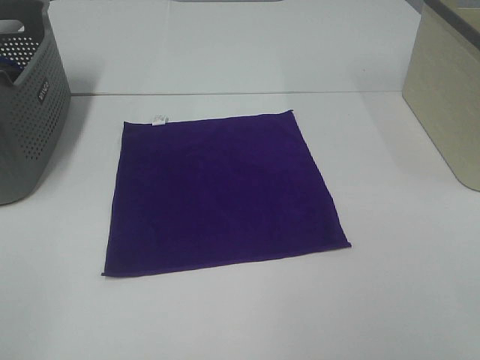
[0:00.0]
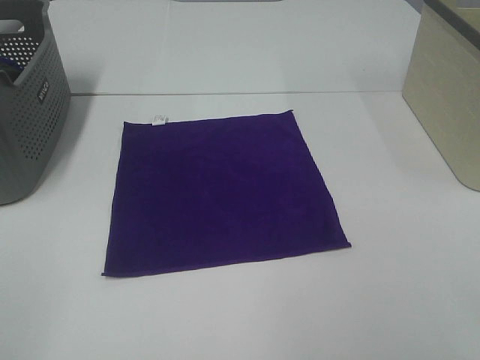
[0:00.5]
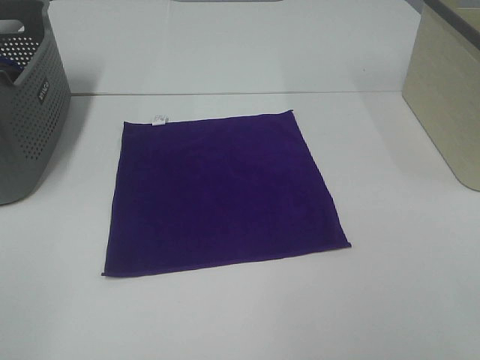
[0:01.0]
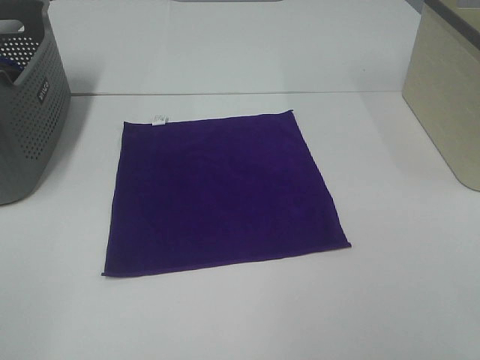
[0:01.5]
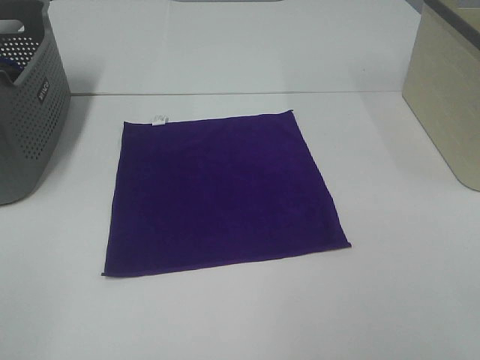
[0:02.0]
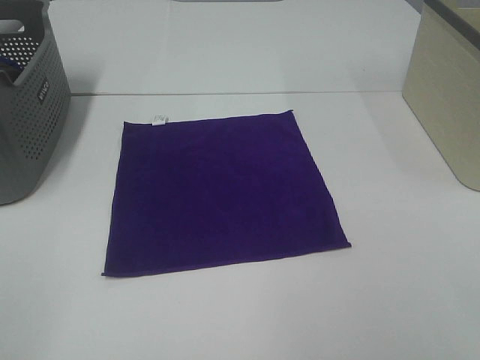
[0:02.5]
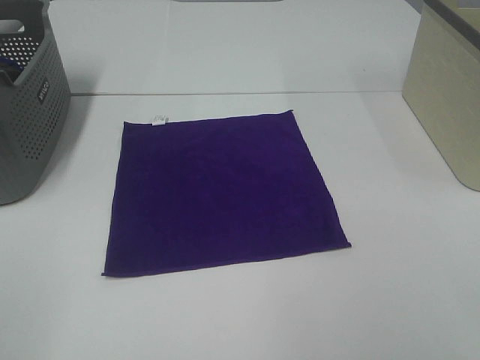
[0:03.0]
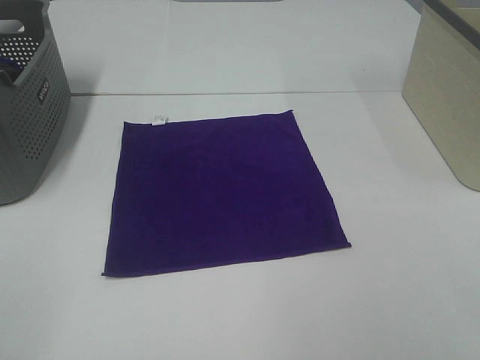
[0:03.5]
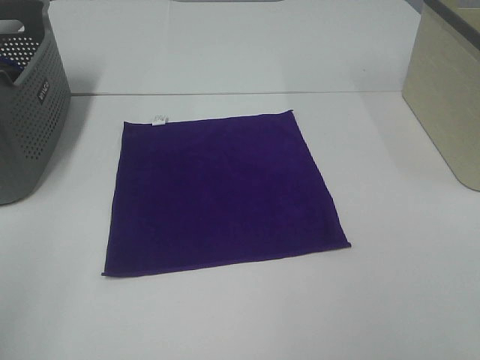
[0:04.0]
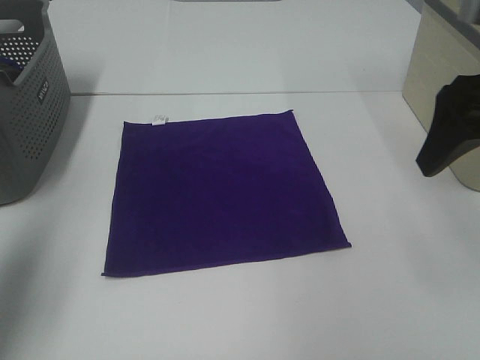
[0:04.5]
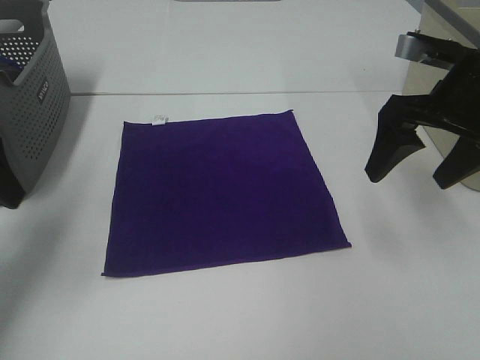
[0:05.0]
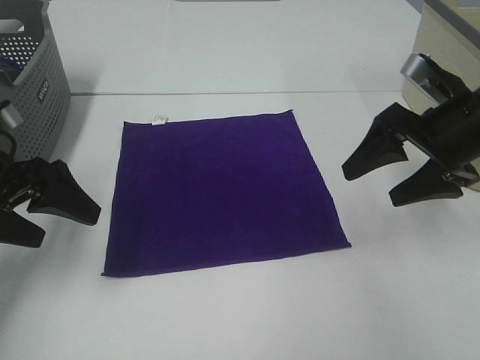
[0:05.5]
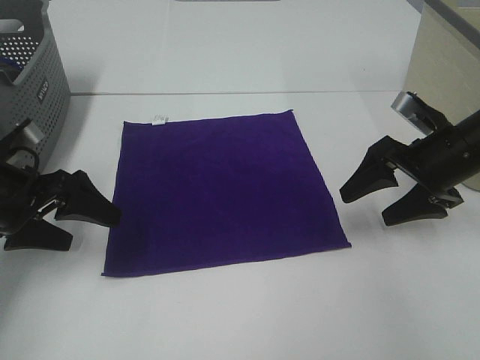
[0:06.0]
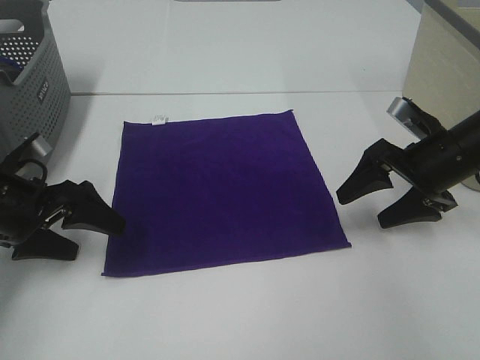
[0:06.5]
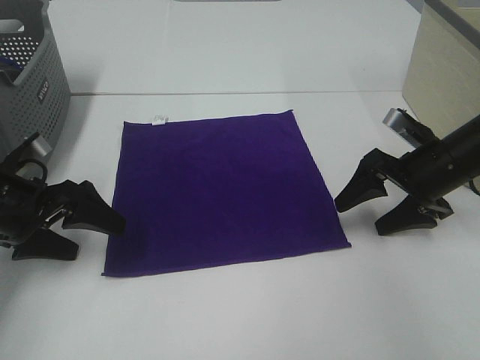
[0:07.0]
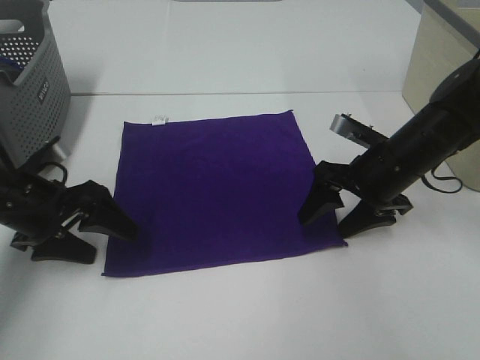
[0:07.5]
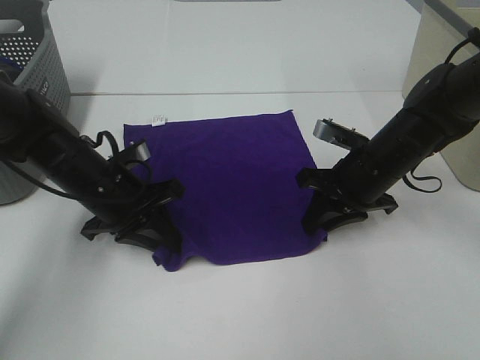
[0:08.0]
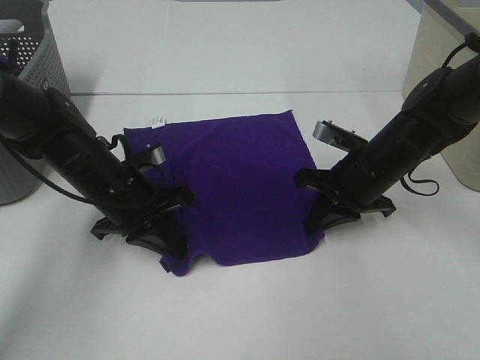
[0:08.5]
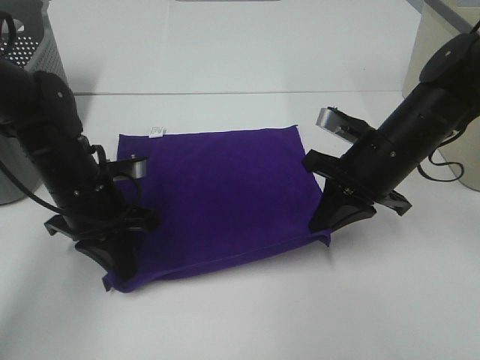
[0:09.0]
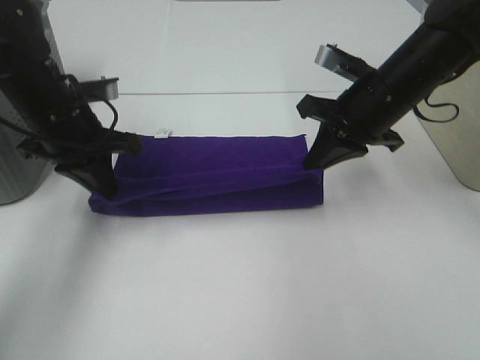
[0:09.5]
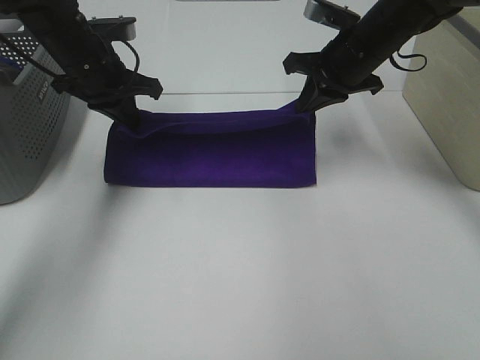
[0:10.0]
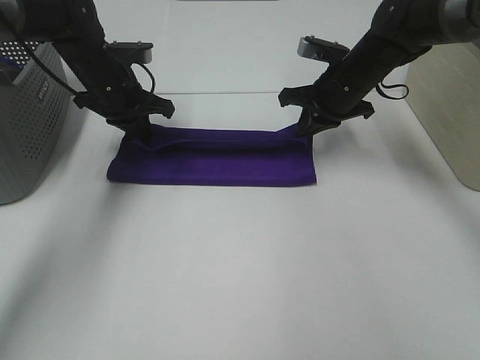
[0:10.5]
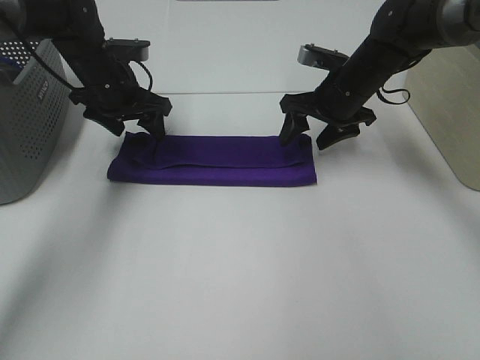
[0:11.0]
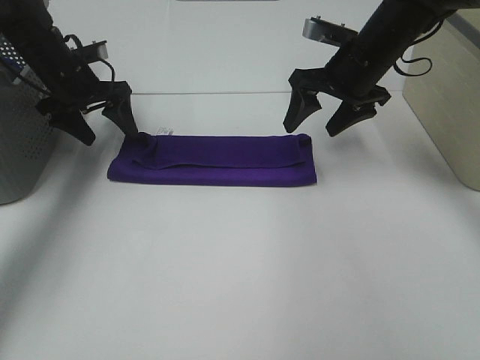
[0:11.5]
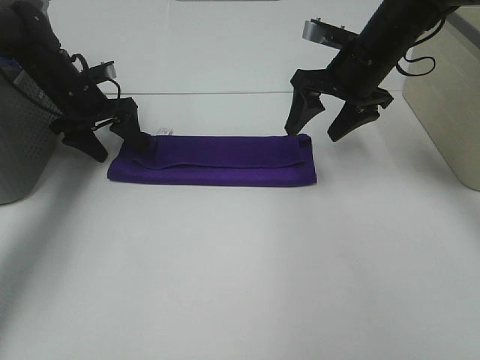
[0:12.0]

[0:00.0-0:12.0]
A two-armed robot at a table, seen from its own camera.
Task of the whole recording: Fold towels.
Step, 0:00.0 to 0:08.0: Left hand: grab the bottom left corner of purple towel.
Step, 0:00.0 to 0:08.0: Right hand: grab the bottom right corner of purple towel.
Step, 0:08.5 to 0:10.5: Left hand: fold the purple towel up.
Step, 0:08.5 to 0:10.5: Right hand: fold the purple towel up.
0:00.0 to 0:02.0: Both grippers stay about where they are.
0:04.0 to 0:06.0: The grippers both shift forward and downward by approximately 30 cm.
0:06.0 to 0:08.0: The right gripper heads to the left, covering some 10 cm, and closes up. Meanwhile the left gripper goes approximately 10 cm to the right, and closes its fingers.
0:08.0 to 0:10.0: The right gripper goes some 15 cm upward and forward, while the left gripper travels forward and upward by about 15 cm.
0:10.0 to 0:12.0: The right gripper opens its fingers; the left gripper travels downward, to the left and forward by some 10 cm, and opens up.

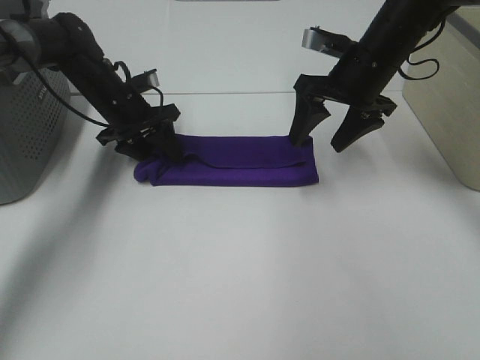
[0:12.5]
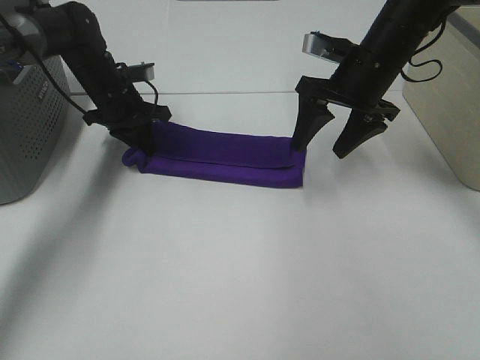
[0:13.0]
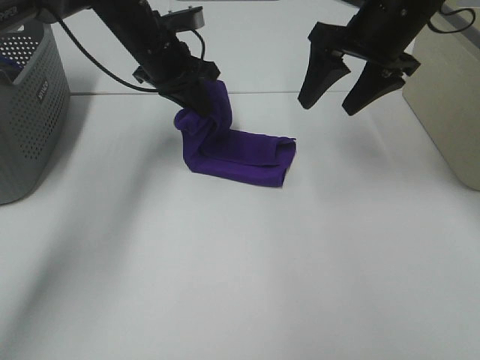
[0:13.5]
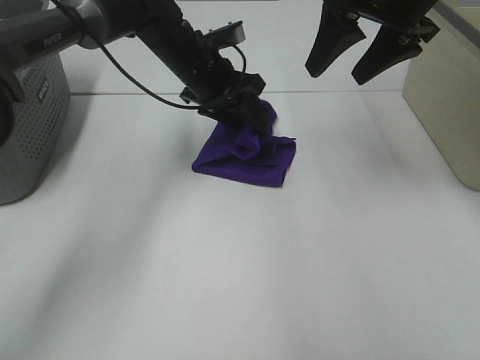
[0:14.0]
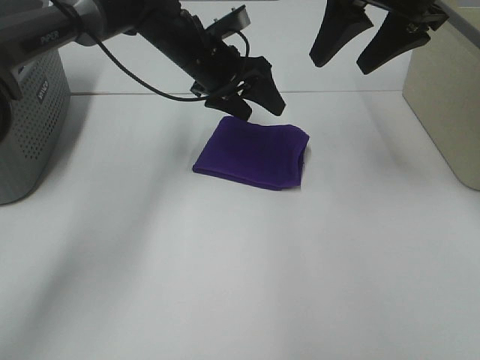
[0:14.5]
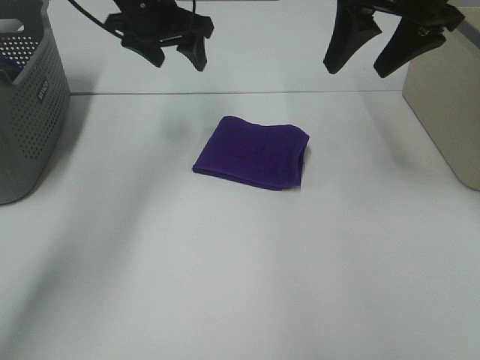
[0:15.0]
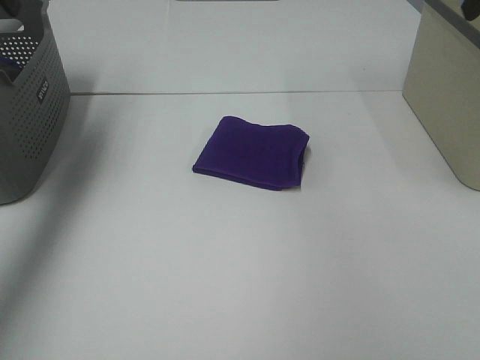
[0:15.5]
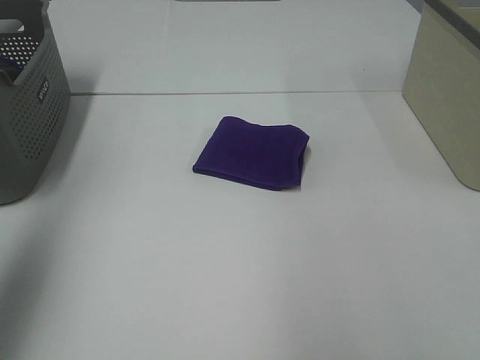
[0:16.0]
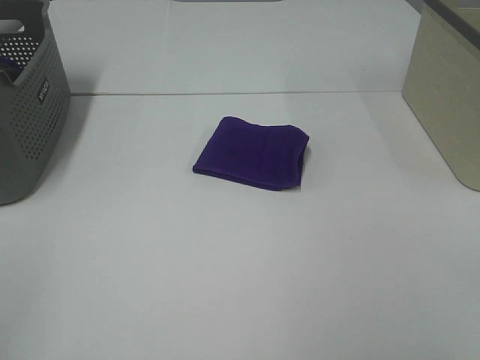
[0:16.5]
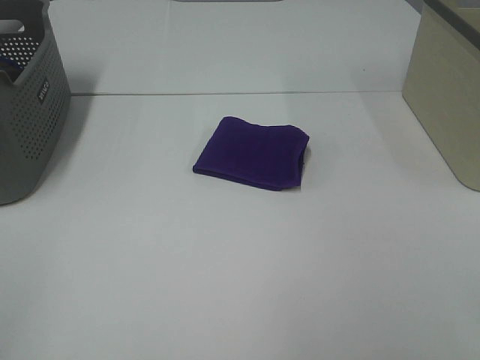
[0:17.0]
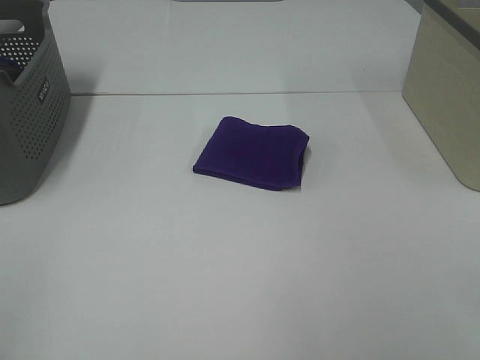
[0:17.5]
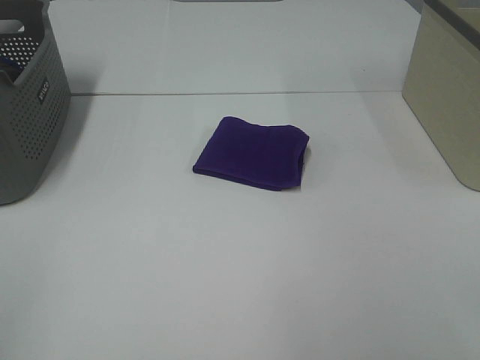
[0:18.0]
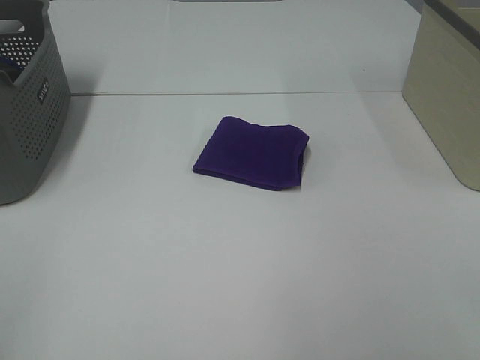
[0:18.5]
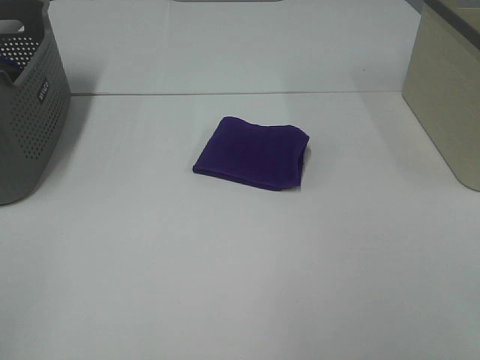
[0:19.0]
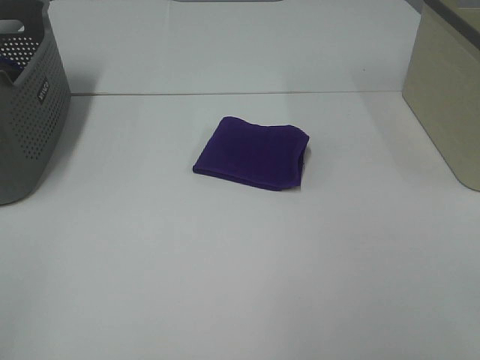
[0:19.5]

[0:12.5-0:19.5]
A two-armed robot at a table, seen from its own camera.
Task of the whole recording: Fold towels.
0:12.5 to 0:14.5: The left gripper heads to the right and upward, covering roughly 15 cm, and closes and opens again. The right gripper moves upward, approximately 15 cm.
0:14.5 to 0:16.0: The left gripper travels backward, to the left and upward by some 40 cm, while the right gripper heads backward and to the right, covering approximately 25 cm.
0:16.0 to 0:17.5: The left gripper goes approximately 20 cm backward and downward.
0:17.5 to 0:19.5: Both grippers stay about where they are.

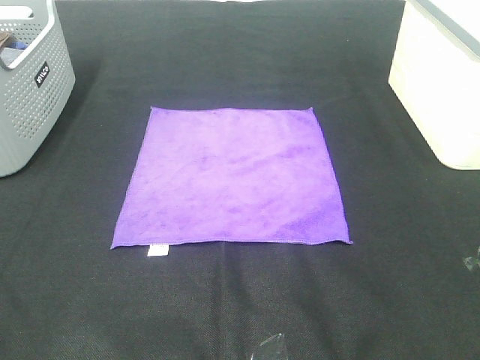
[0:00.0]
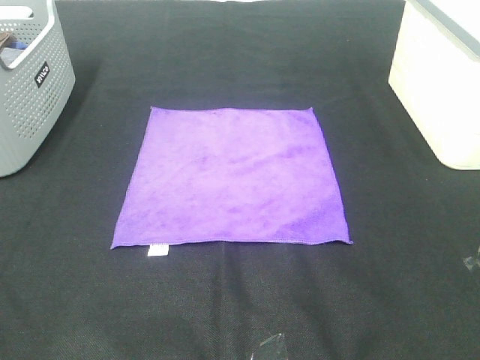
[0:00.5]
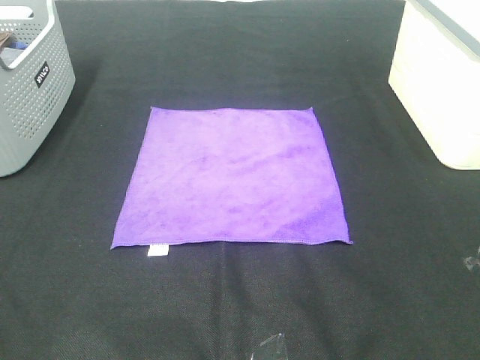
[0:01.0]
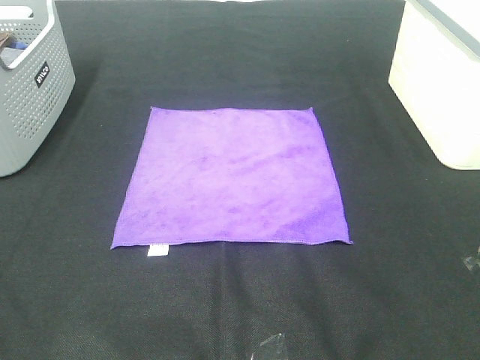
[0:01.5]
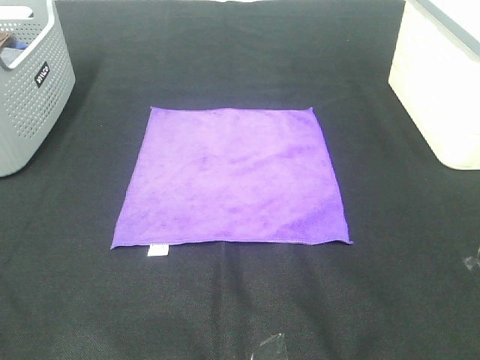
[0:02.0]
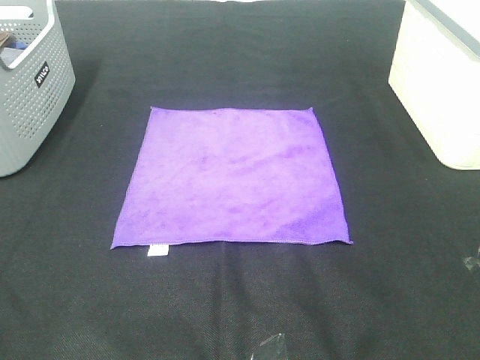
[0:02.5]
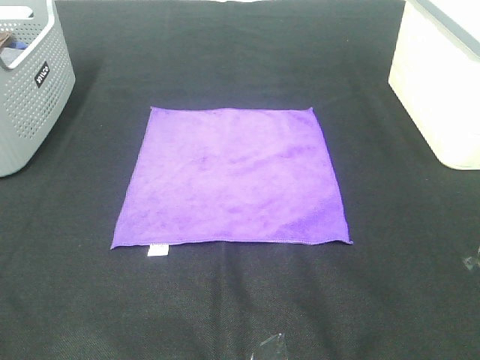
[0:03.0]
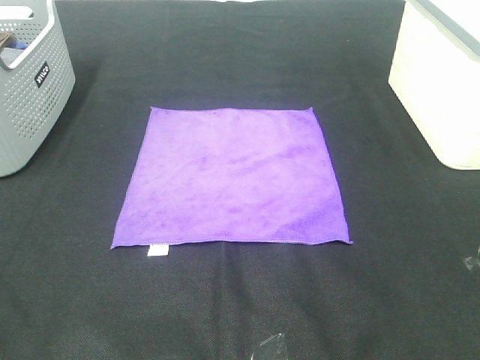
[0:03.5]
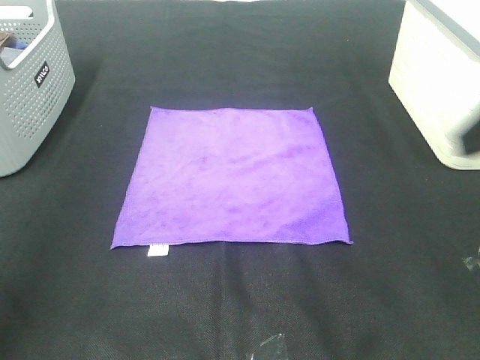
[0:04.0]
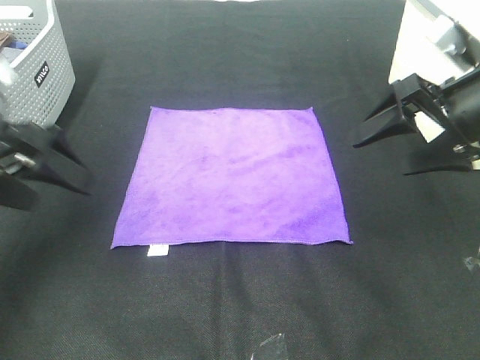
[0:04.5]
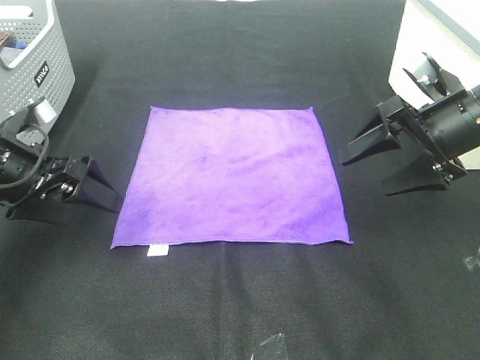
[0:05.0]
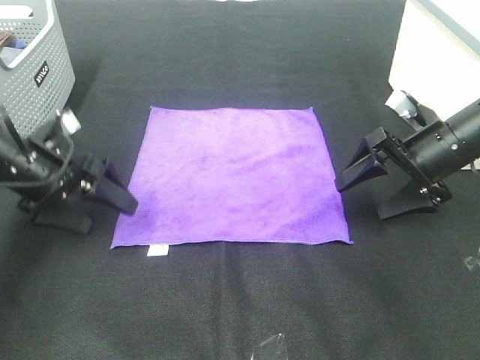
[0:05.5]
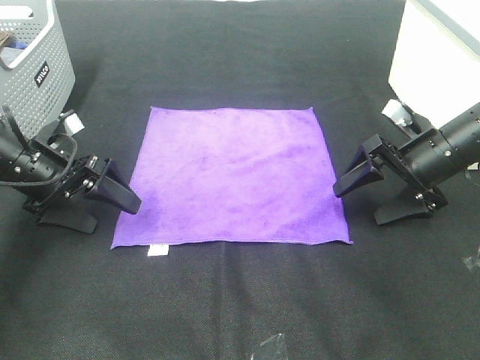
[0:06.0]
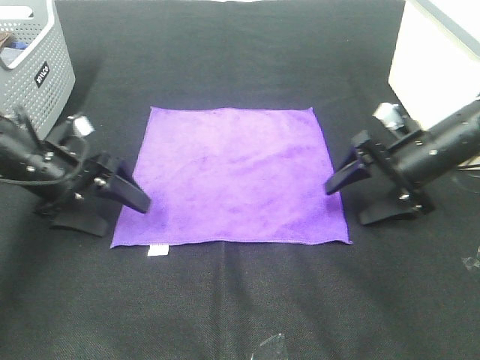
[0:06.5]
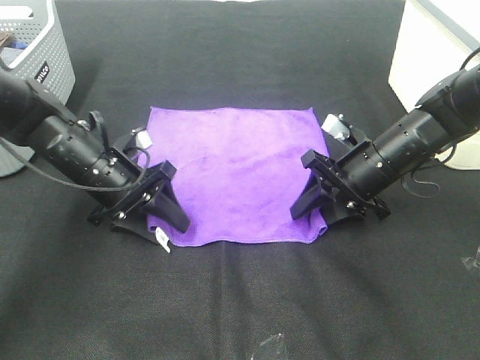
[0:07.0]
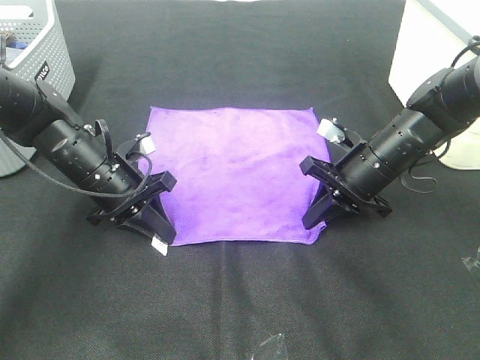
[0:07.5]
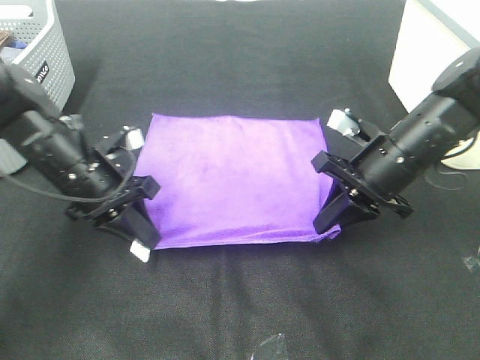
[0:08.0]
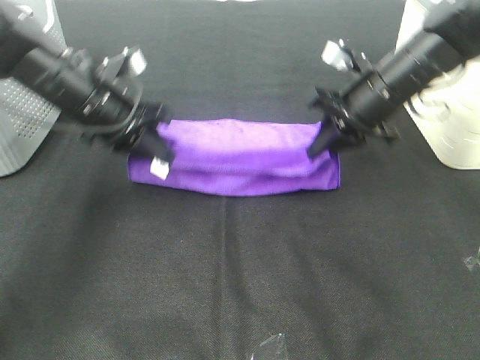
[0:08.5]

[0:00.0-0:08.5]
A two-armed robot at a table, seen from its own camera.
Task of the whole recording: Fold towels.
Step, 0:00.0 to 0:07.0: Left hand: grab the bottom left corner of purple towel.
Step, 0:00.0 to 0:07.0: Right hand: grab the bottom right corner of purple towel.
0:00.0 to 0:02.0: Neither gripper changes place.
0:02.0 to 0:04.0: The grippers both shift forward by some 20 cm.
0:04.0 to 0:06.5: The two grippers go some 30 cm downward and forward.
0:06.5 to 0:08.5: The left gripper goes roughly 10 cm upward, to the right and forward, and closes; the right gripper heads upward, to the left and forward, covering about 10 cm, and closes up.
